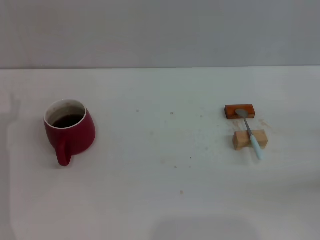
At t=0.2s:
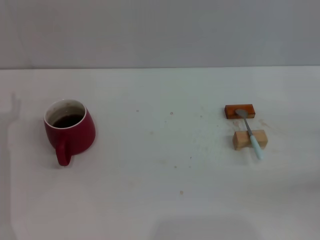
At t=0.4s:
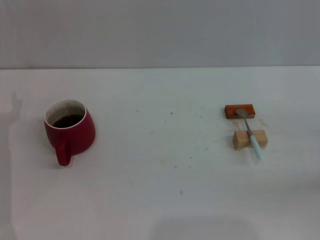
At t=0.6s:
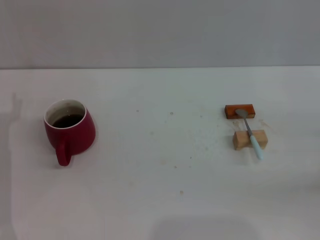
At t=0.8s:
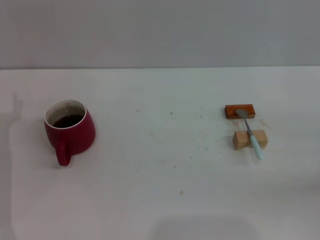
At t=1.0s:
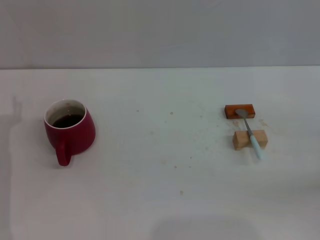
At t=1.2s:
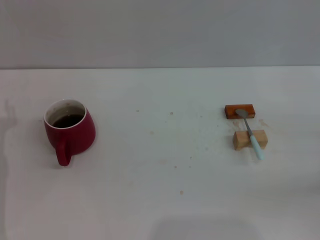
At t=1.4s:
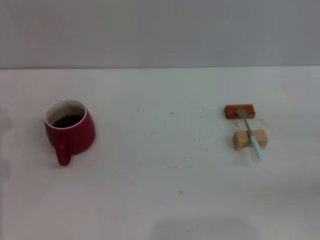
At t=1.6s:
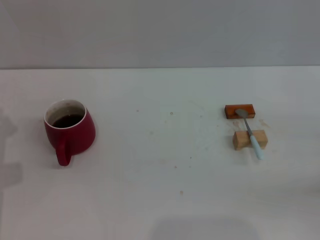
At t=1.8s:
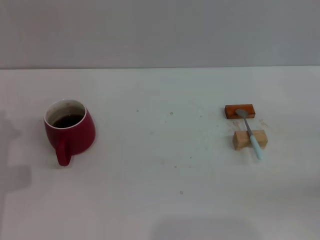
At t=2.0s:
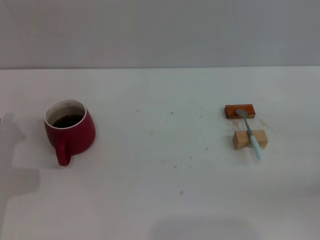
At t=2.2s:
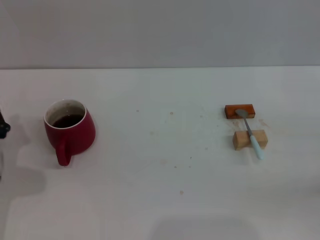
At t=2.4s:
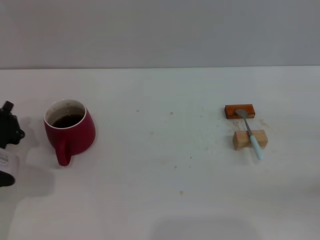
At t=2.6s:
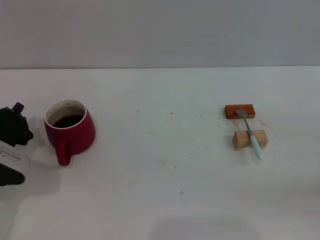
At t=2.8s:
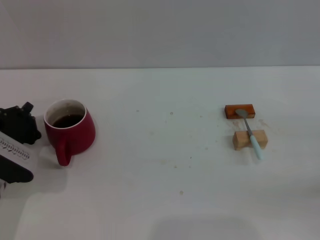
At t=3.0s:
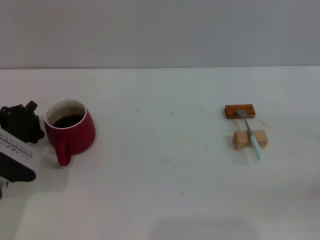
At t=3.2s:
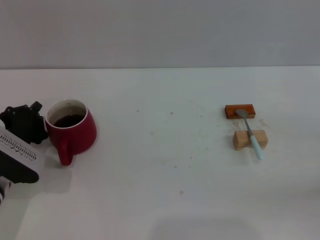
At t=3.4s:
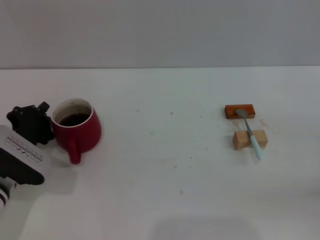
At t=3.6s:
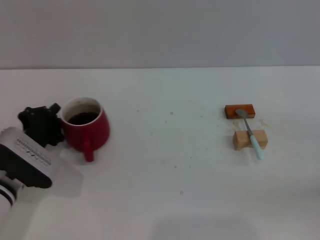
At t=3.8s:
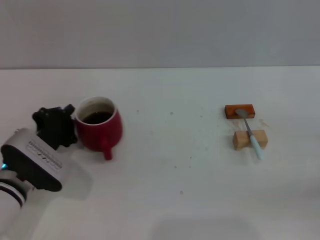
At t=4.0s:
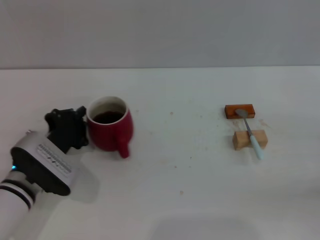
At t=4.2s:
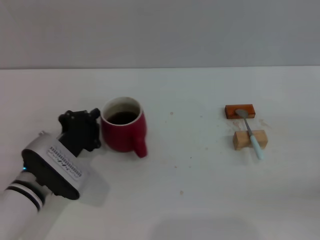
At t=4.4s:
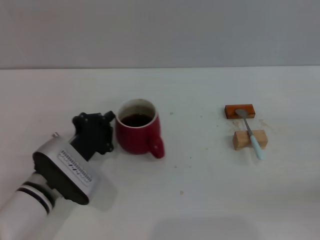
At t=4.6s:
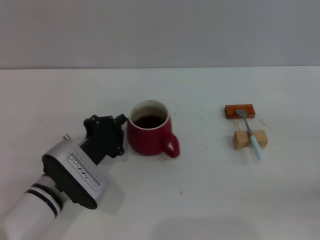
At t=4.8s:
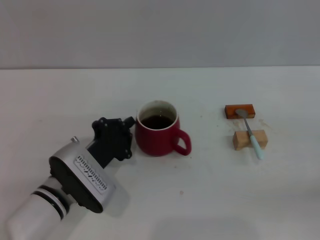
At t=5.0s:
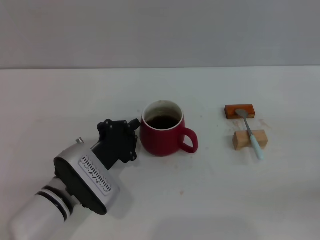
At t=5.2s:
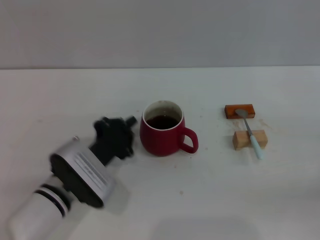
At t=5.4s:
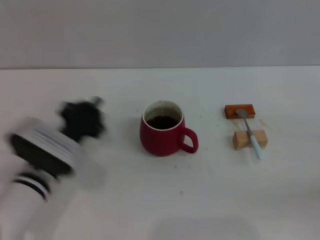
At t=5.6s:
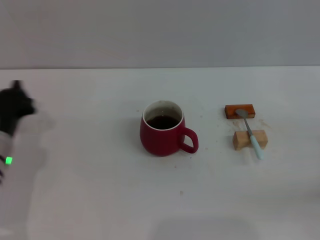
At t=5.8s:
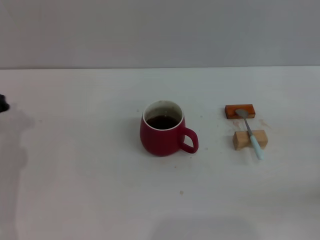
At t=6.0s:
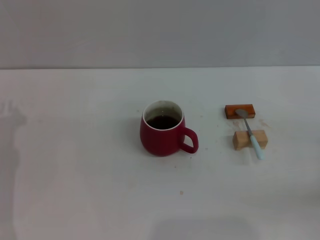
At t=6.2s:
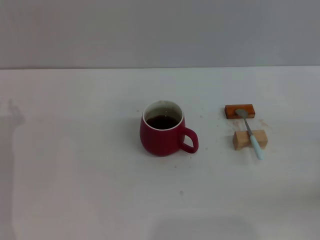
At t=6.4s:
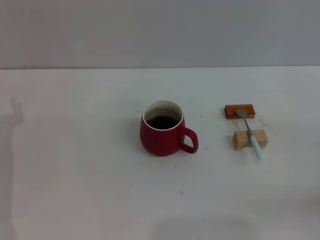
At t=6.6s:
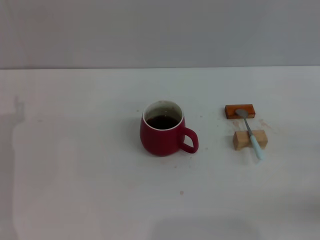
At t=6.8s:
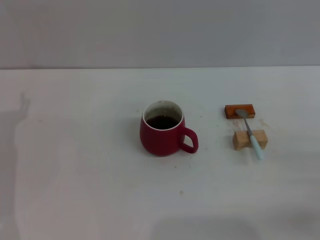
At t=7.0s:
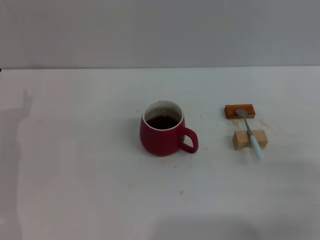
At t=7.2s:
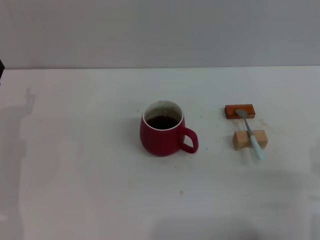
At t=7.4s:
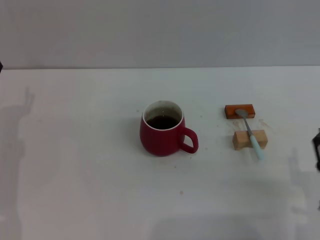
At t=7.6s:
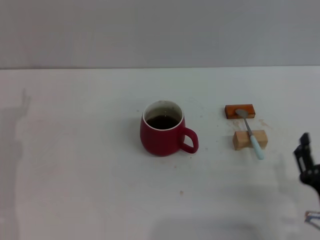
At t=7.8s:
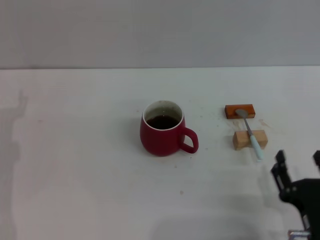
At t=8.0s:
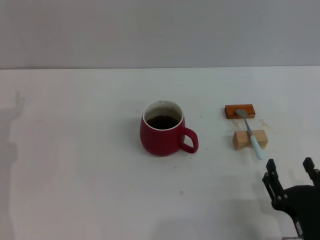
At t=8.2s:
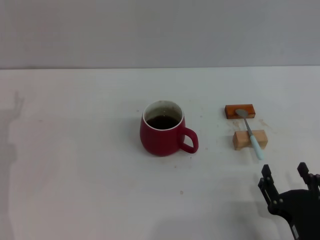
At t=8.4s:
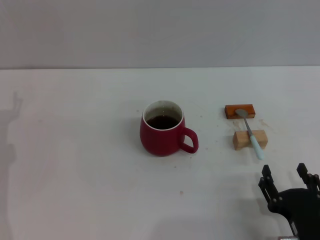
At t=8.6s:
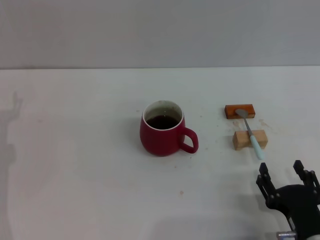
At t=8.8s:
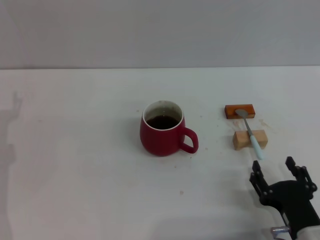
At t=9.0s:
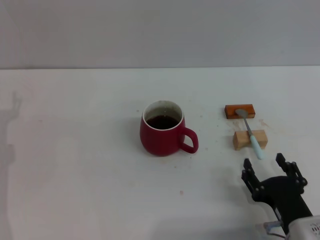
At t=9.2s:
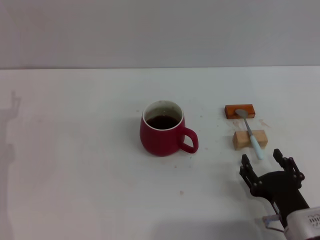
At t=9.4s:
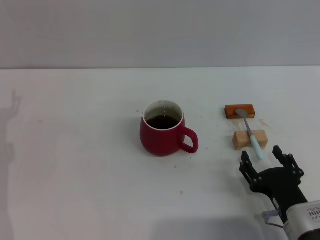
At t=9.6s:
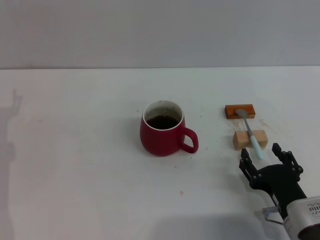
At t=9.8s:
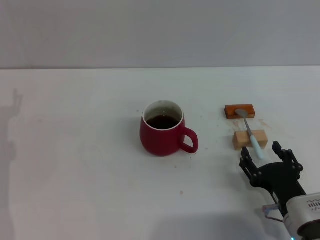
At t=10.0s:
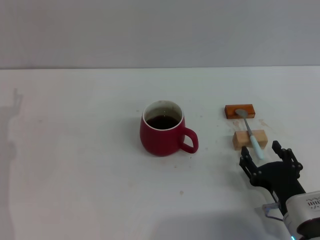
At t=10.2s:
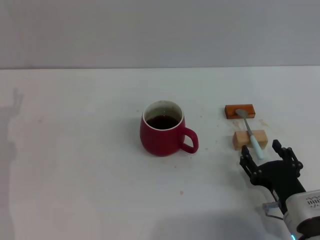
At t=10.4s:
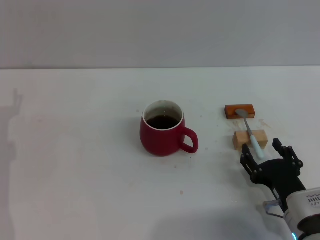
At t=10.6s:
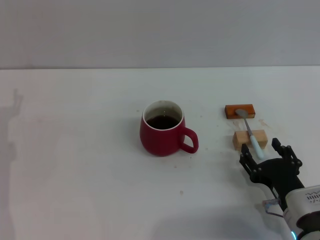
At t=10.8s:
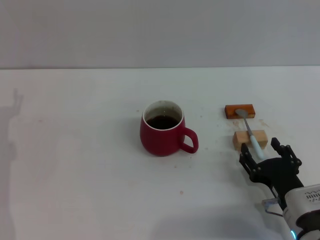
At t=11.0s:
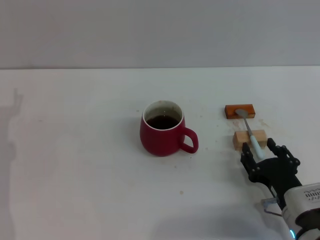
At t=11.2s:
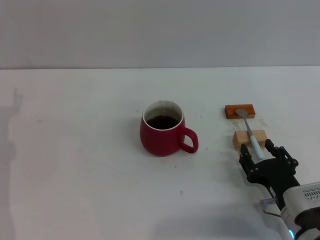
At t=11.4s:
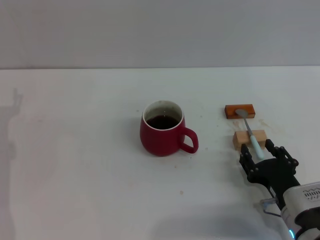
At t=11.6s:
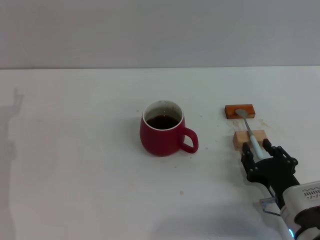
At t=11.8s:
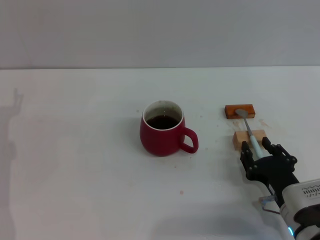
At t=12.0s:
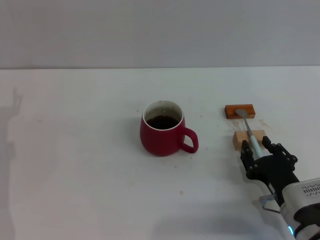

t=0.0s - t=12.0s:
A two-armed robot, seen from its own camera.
Task of the whole recording: Move the red cup to the center, lift the blue spoon, stir it three times in the cup, and put the spoon into the cup.
Step, t=0.0s - t=5.2s: Move the cup with coffee to the center of view with the left gripper.
t=1.6s - t=3.0s: The left gripper shifts by some 5 cm, and closes up.
t=3.0s - t=4.4s: The left gripper is displaced to the right by some 10 cm.
t=4.4s - t=6.0s: The left gripper moves to the left, roughly 10 cm.
t=6.0s - t=7.6s: The right gripper is displaced to the left and backward by roughly 20 cm.
t=7.6s - t=9.0s: There are only small adjustments of the grippers.
t=9.0s - t=10.4s: The grippers stay close to where they were, moving slightly.
t=10.4s - t=12.0s: Both grippers stay about where they are.

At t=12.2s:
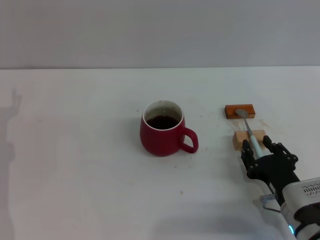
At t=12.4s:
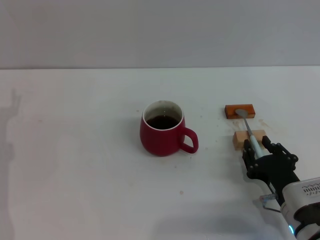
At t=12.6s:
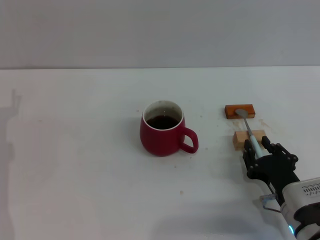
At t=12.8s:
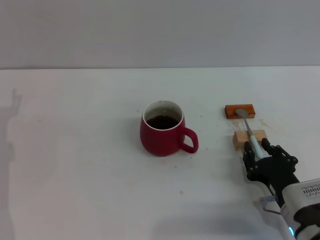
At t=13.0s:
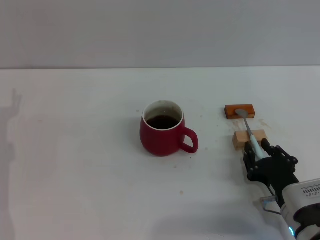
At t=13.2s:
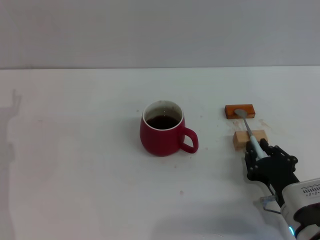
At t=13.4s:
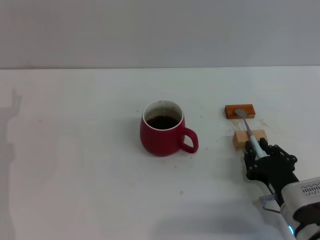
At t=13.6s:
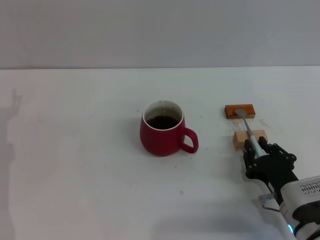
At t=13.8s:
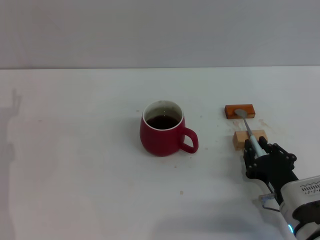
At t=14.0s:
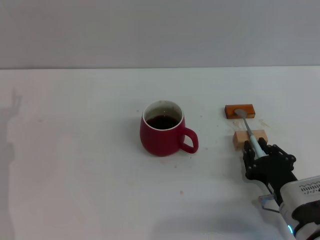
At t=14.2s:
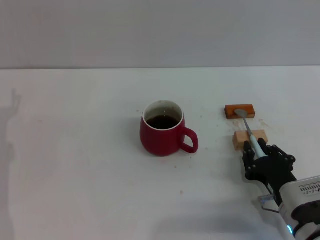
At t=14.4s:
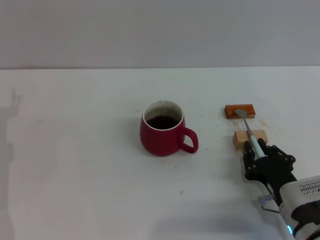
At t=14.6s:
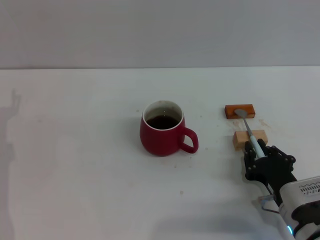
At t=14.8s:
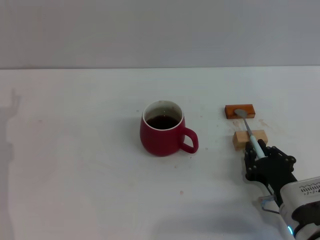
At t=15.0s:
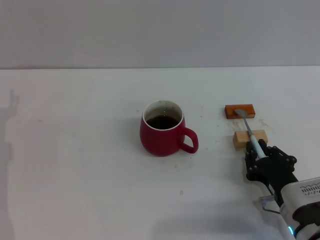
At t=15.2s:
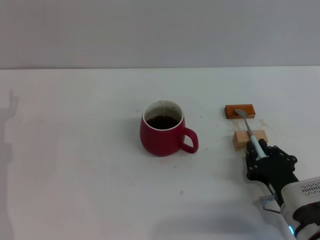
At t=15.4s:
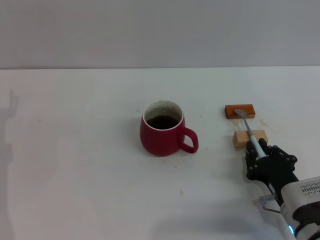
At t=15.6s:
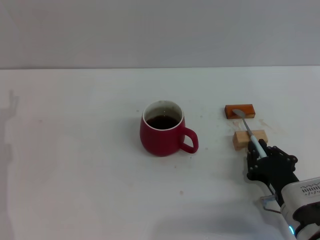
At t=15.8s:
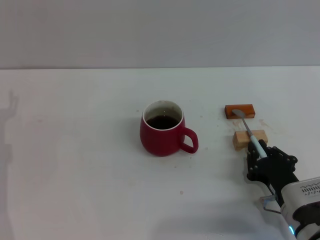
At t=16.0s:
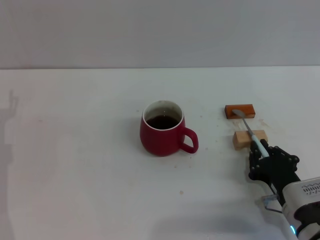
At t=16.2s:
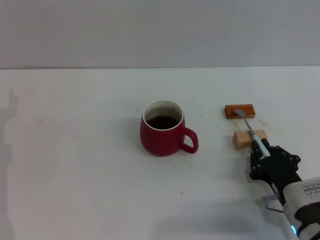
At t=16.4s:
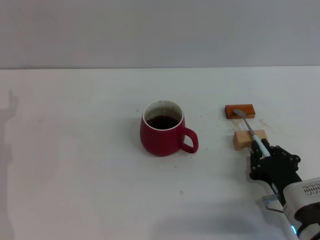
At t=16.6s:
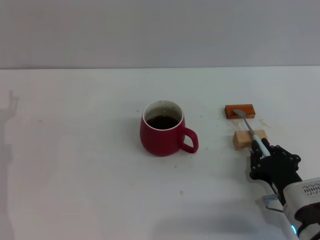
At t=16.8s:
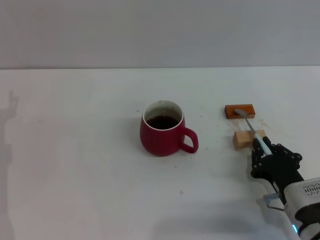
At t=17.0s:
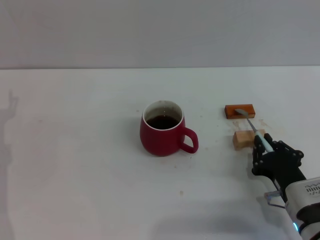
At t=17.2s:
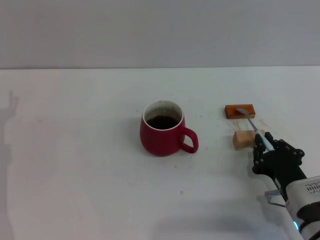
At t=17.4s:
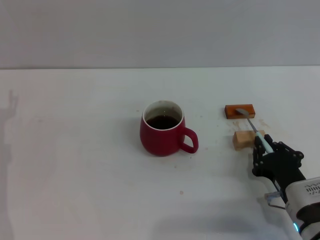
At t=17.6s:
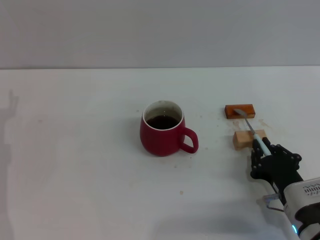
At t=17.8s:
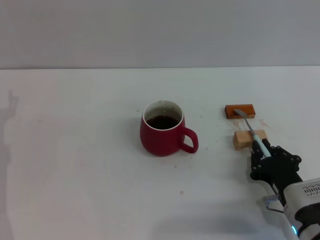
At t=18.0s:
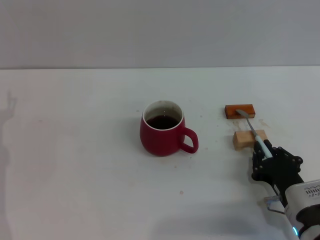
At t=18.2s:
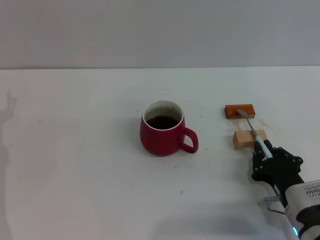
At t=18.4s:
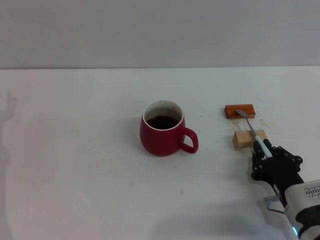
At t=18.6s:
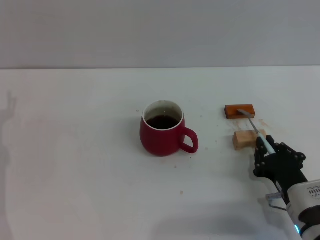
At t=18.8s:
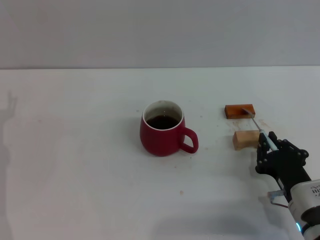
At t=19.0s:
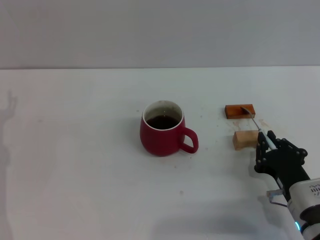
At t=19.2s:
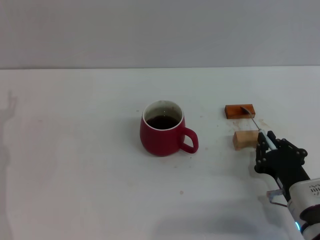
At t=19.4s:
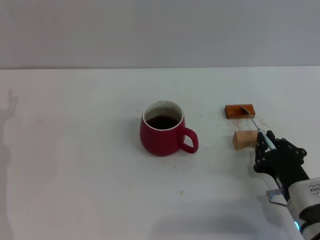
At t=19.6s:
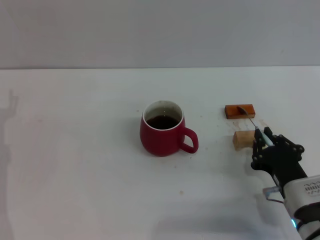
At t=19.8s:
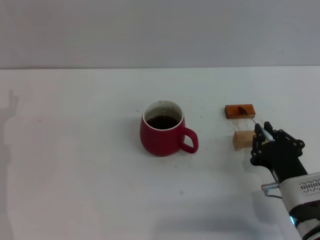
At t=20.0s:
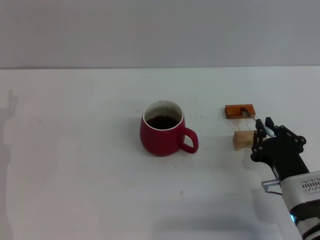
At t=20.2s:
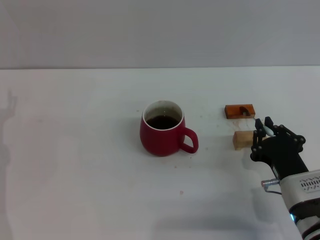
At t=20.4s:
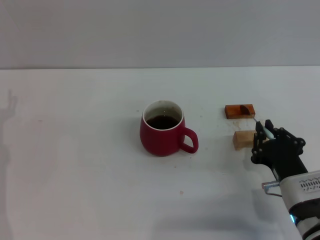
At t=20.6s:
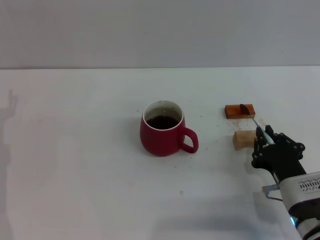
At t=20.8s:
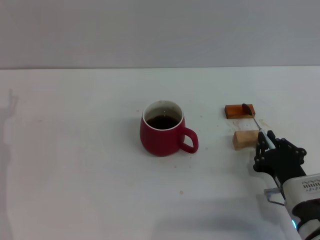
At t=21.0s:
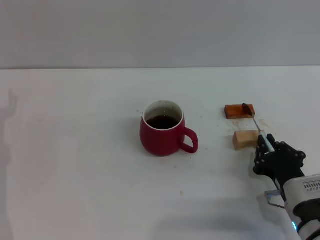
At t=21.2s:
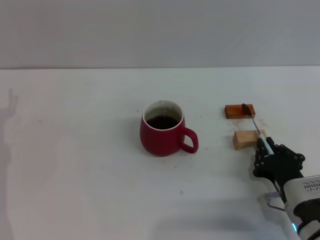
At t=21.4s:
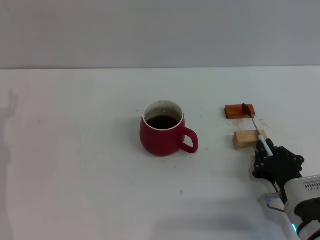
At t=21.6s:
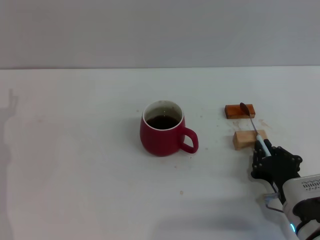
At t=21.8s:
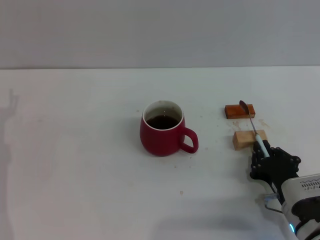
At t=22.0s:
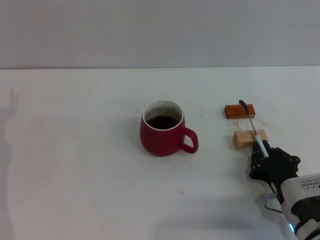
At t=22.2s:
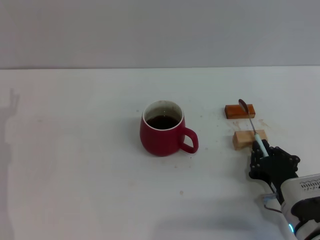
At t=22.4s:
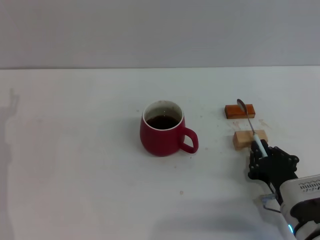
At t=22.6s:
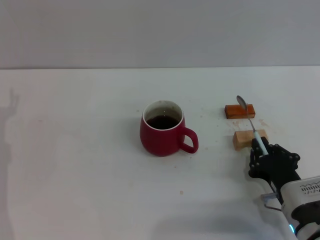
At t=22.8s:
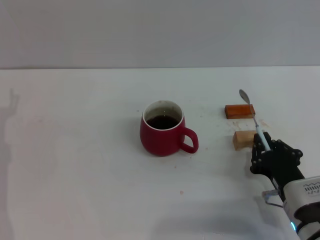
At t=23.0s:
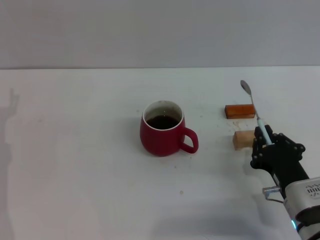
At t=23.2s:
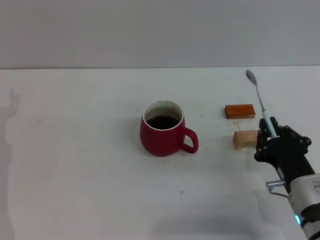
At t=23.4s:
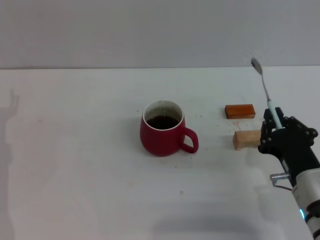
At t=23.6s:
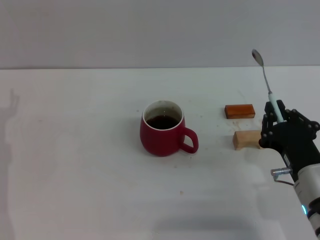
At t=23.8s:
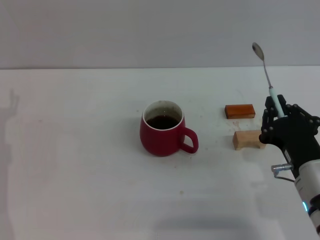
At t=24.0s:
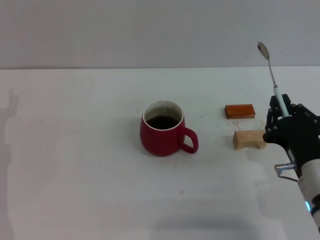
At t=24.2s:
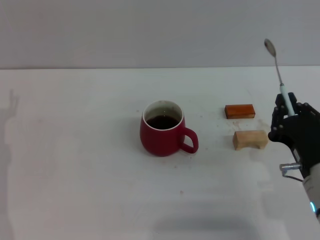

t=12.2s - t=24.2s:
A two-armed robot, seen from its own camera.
Task of the whole recording: Move the red cup to the center, lift the blue spoon, stir it three times in the cup, and put the spoon into the cup.
t=12.2s - t=18.2s: Both grippers stay put.
t=18.2s - t=21.2s: The grippers move only a little.
t=21.2s - t=22.6s: Both grippers stay about where they are.
t=22.6s - t=24.2s: The right gripper moves upward, about 10 cm.
